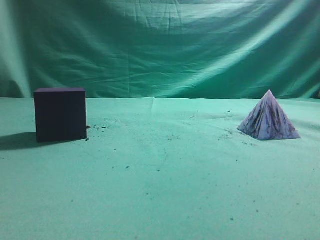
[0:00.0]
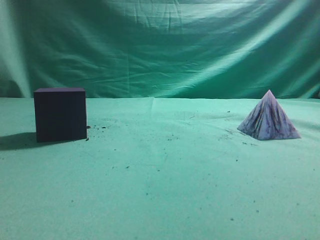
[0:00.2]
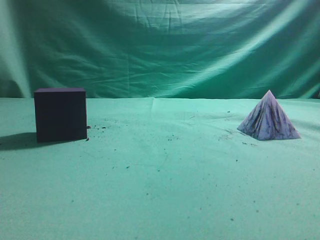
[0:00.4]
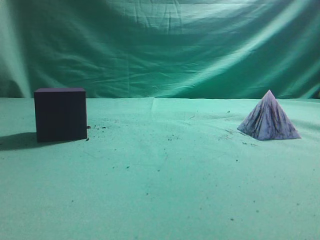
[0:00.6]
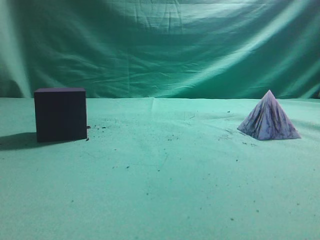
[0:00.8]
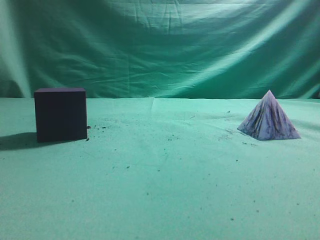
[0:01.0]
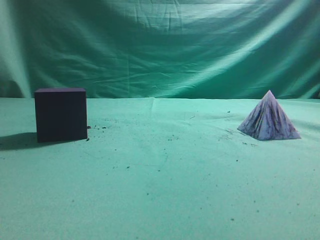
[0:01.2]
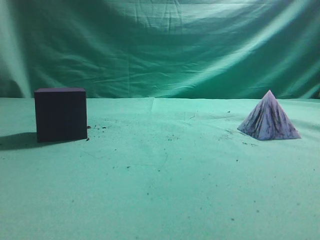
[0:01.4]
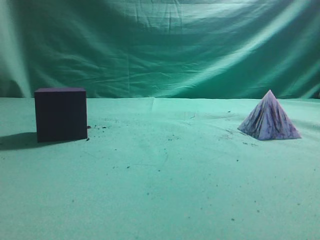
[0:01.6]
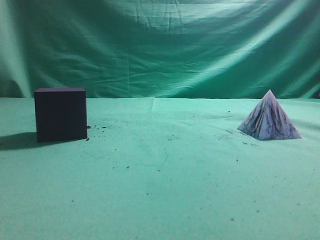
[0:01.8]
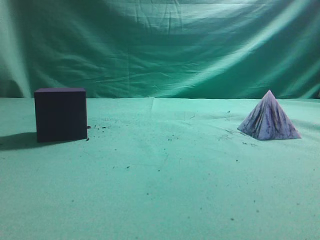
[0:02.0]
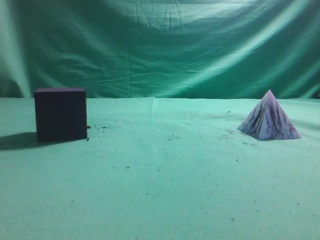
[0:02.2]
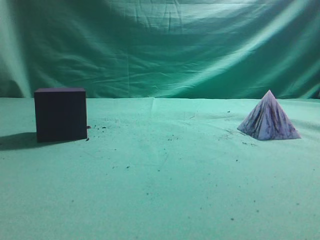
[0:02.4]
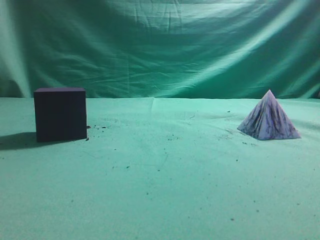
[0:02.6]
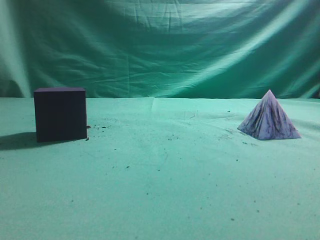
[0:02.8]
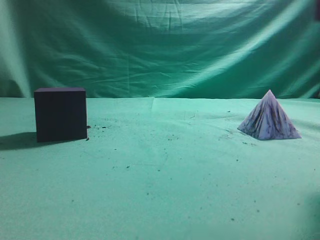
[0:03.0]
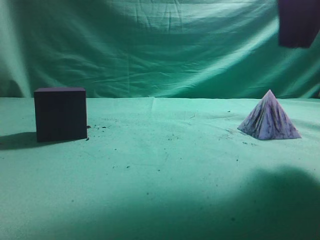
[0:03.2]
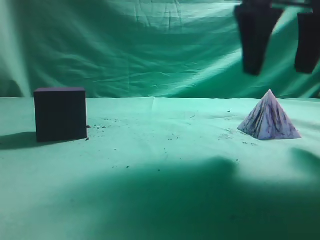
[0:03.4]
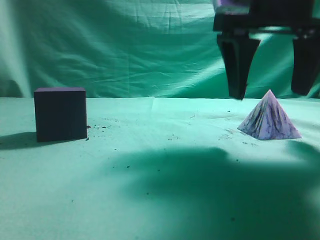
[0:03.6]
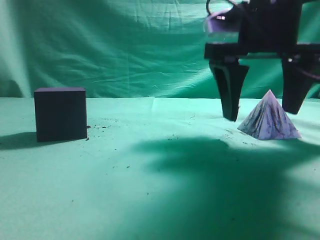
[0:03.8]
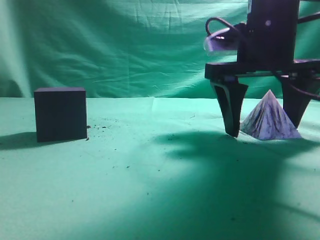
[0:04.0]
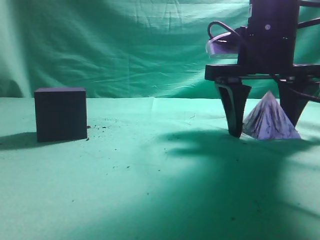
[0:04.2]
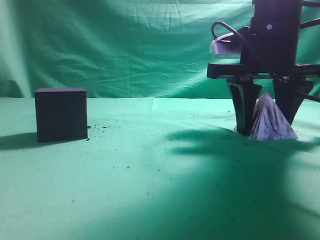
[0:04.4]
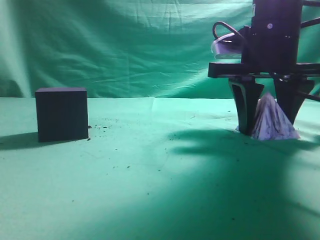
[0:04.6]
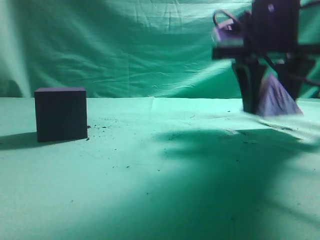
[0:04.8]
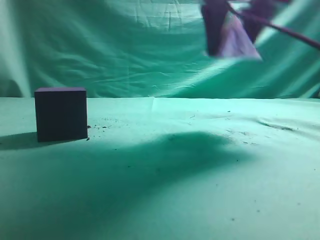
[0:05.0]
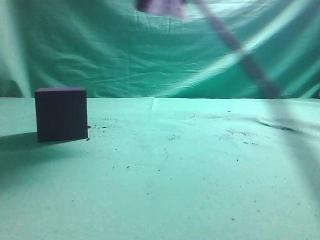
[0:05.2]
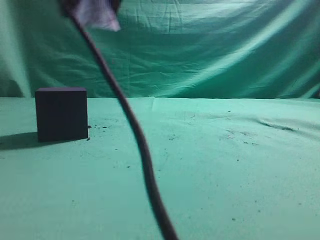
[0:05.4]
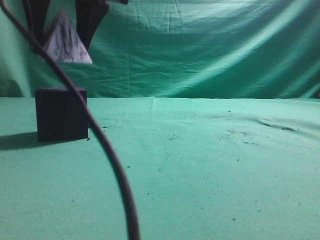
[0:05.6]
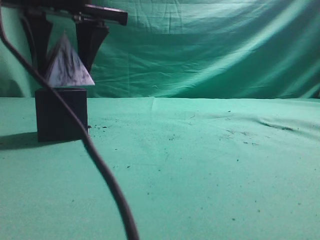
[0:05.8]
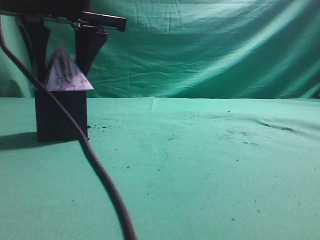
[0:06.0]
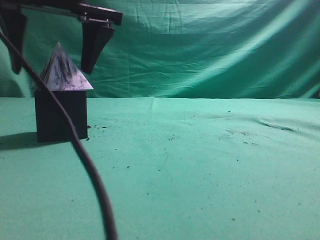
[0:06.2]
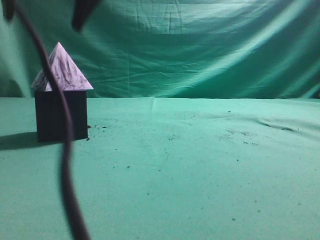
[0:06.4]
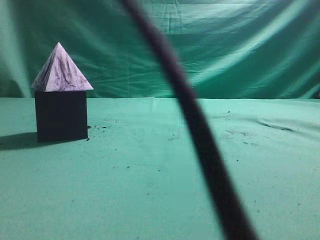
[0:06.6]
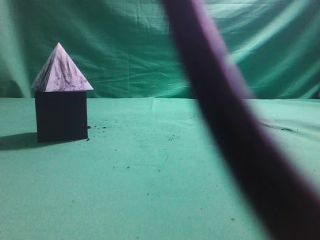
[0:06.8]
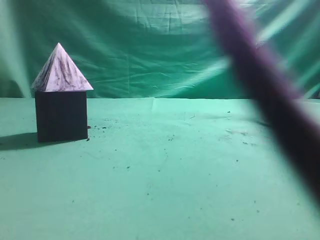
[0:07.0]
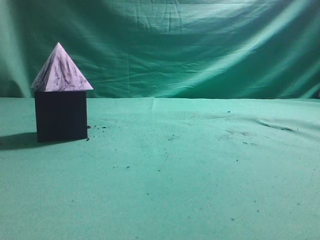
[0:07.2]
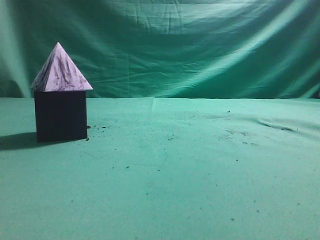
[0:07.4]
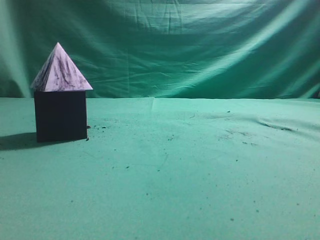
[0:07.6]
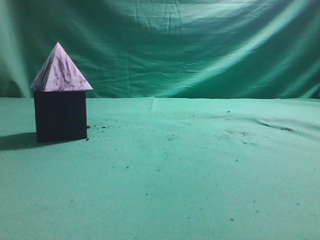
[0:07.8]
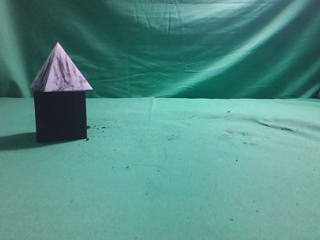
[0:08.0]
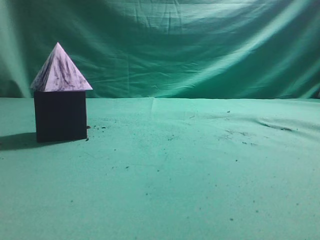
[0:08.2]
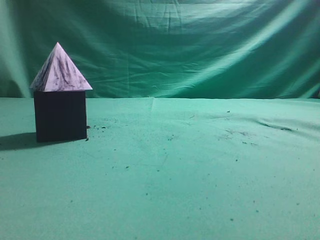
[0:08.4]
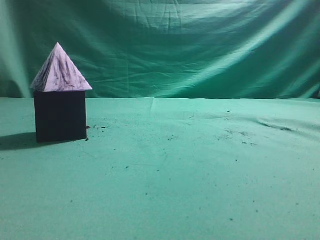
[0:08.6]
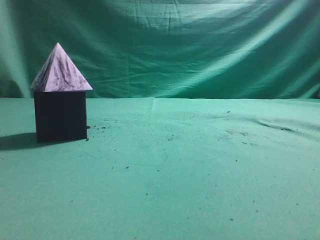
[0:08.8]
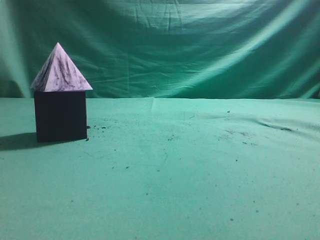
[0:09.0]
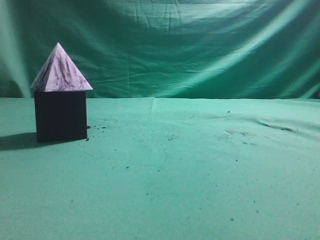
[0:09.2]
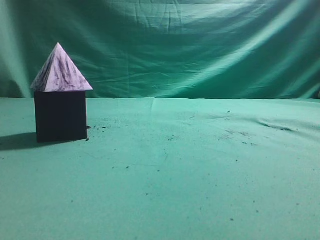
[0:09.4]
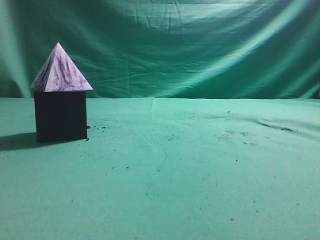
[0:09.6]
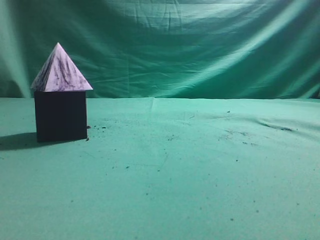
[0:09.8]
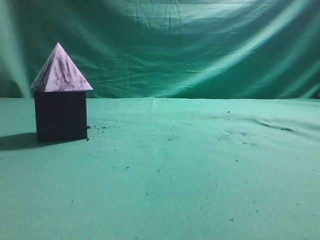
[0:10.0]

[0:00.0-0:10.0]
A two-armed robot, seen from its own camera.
Task of the whole recording: pick up the square pyramid from the table and place it on the cube block.
Step, 0:00.0 to 0:04.8: Grasp the triangular block.
Step, 0:05.0 to 0:06.2: Place the block onto the cube-shaped block.
0:02.8 to 0:04.2: The right gripper shifts some 20 cm forward, downward and to the left, and opens.
0:04.2 to 0:05.8: The right gripper travels to the left by about 25 cm.
0:05.8 to 0:07.2: The right gripper heads upward, to the right and backward, covering about 30 cm, and closes.
